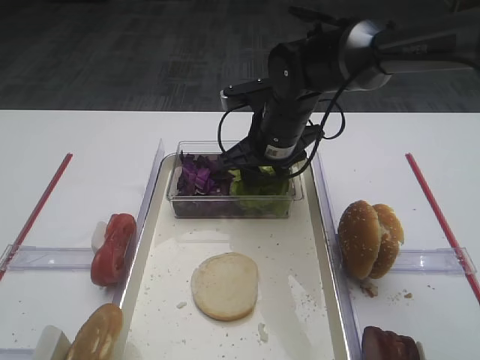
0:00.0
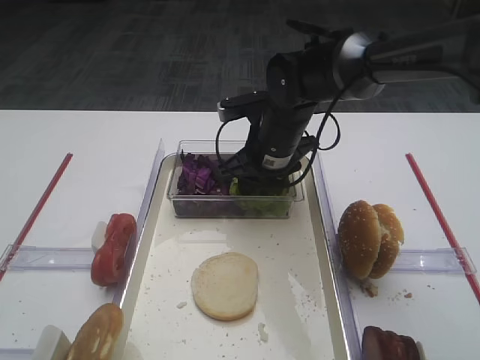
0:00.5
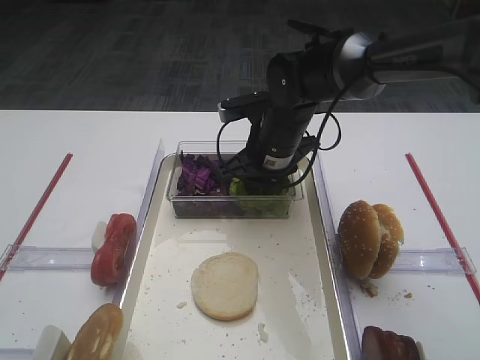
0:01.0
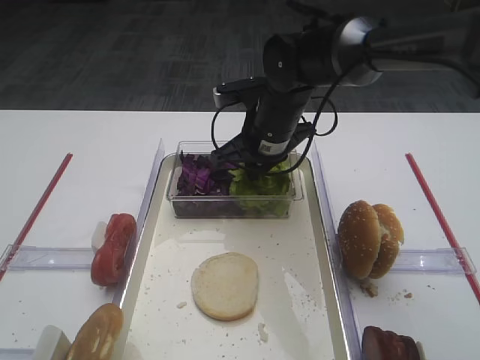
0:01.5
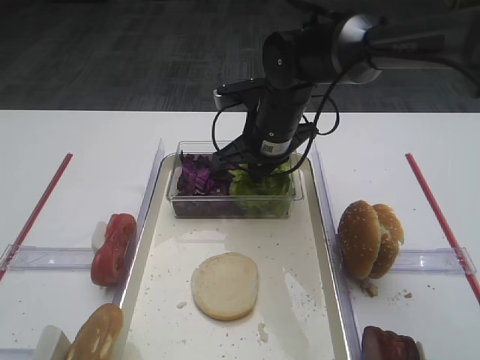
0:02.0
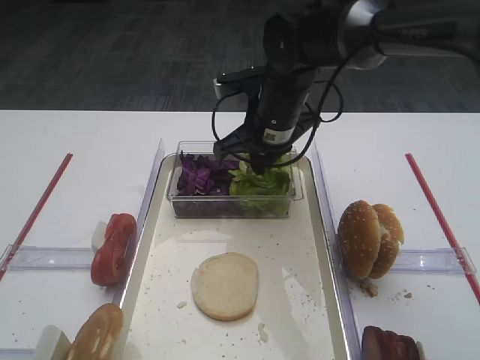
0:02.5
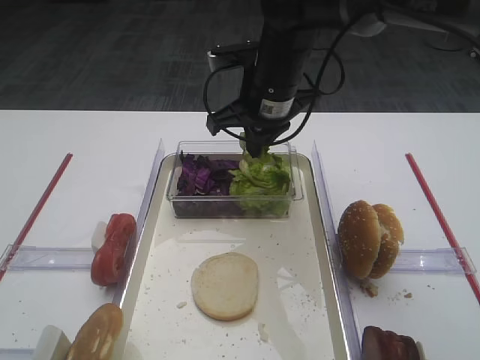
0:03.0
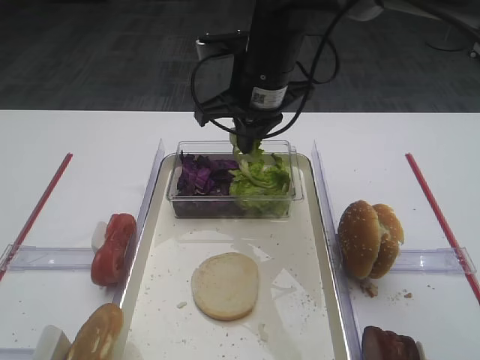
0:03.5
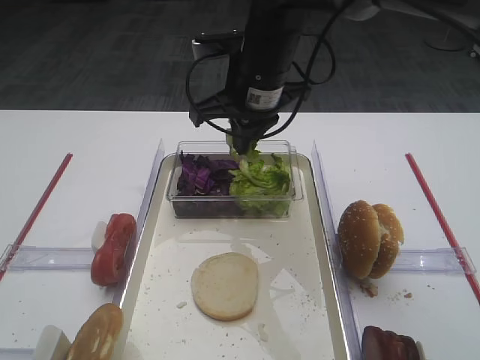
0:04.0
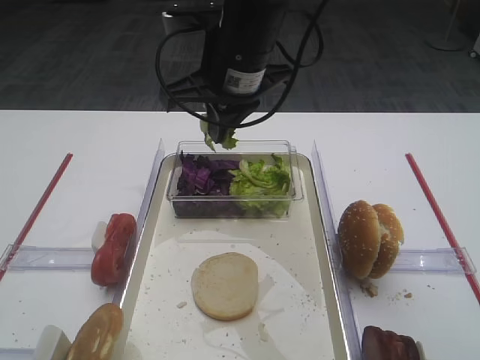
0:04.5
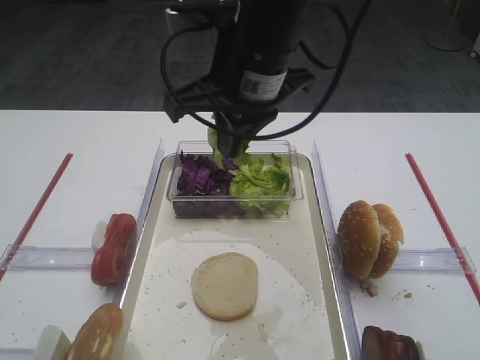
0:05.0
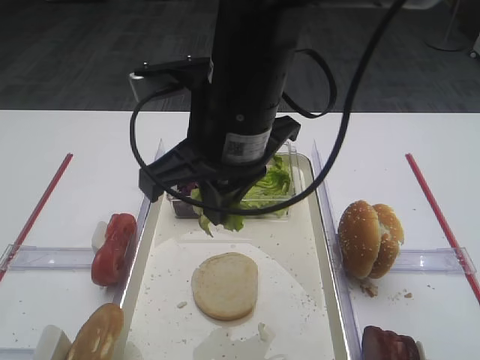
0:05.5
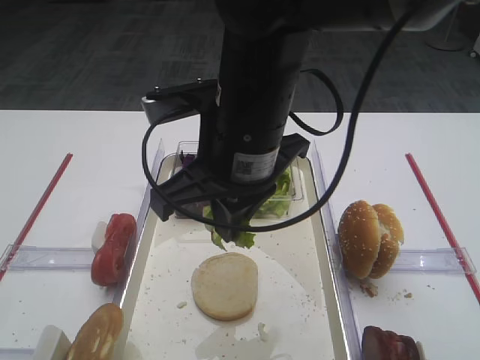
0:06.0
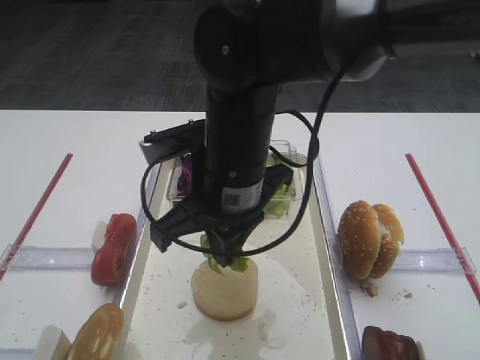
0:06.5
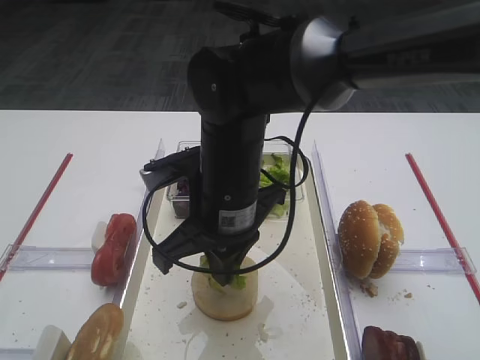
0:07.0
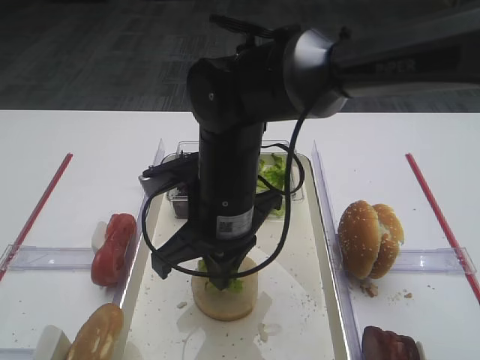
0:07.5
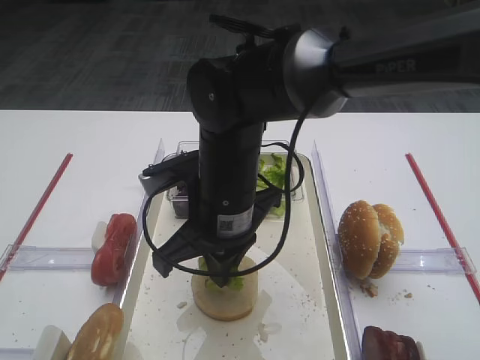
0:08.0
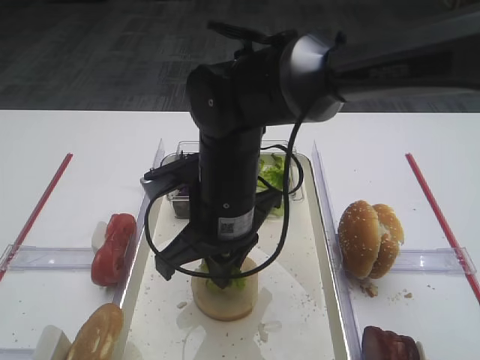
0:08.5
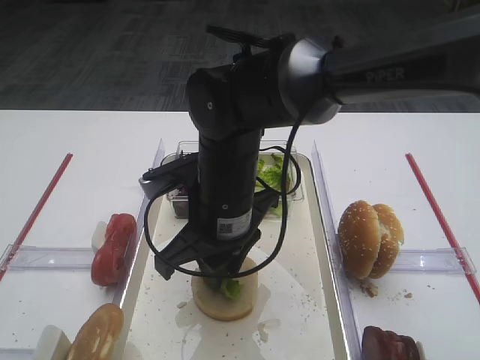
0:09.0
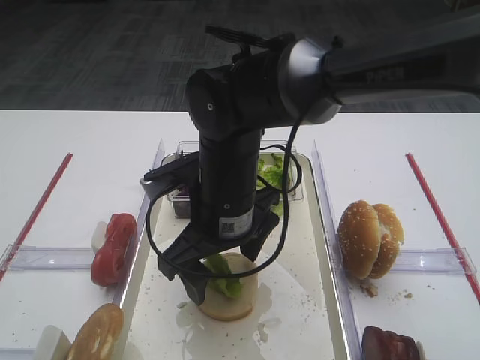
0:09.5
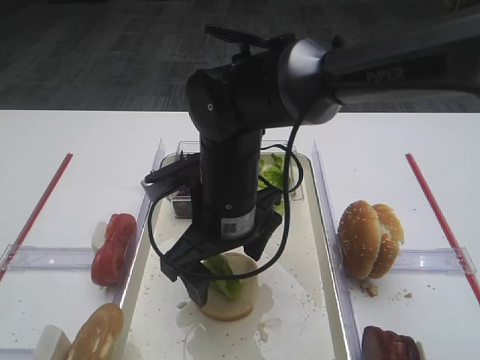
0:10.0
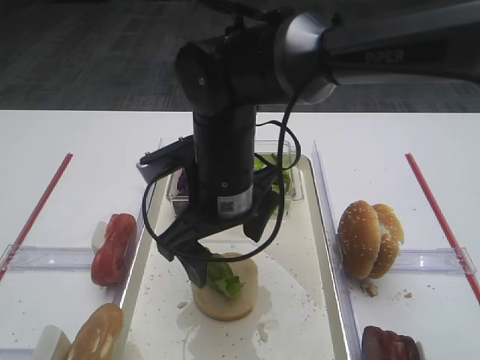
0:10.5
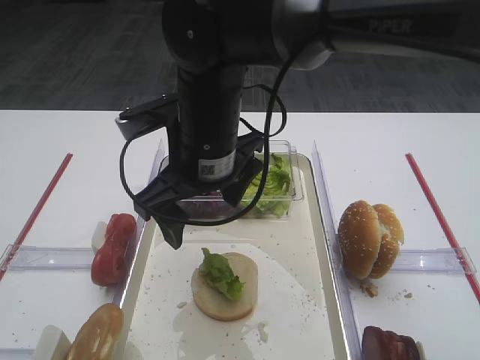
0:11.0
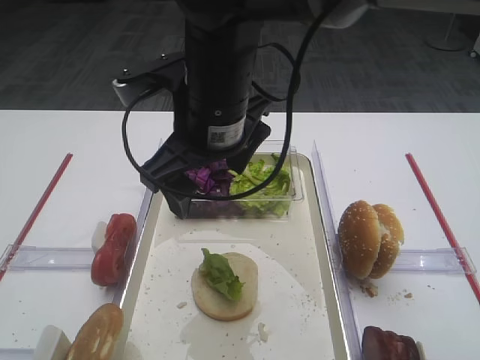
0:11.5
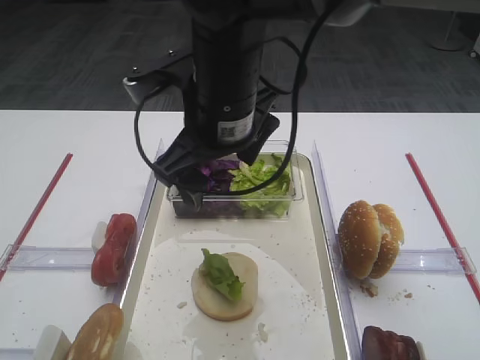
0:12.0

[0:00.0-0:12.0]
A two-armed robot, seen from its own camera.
Step, 0:00.0 to 0:03.0: Pick up the lettuce leaf with the right gripper.
Step, 0:03.5 to 0:10.5: Place the lettuce leaf on the bread slice with the right gripper.
0:00.0 to 0:02.0: The right gripper closes.
0:02.0 to 0:04.0: The right gripper goes about 10 cm upward.
0:04.0 to 0:06.0: The right gripper moves backward, approximately 15 cm.
0:06.0 to 0:08.0: The right gripper moves downward, some 10 cm.
0:08.0 to 0:10.0: The right gripper opens up.
0:10.0 to 0:12.0: The right gripper travels upward by some 10 cm.

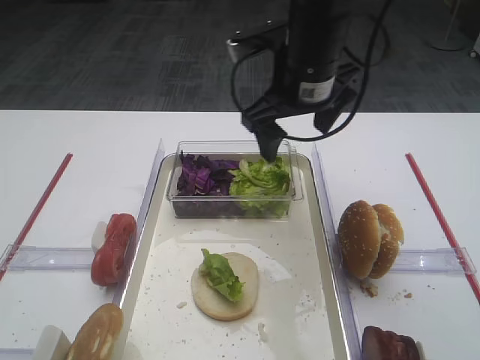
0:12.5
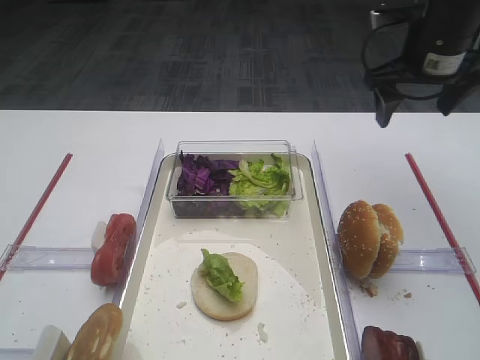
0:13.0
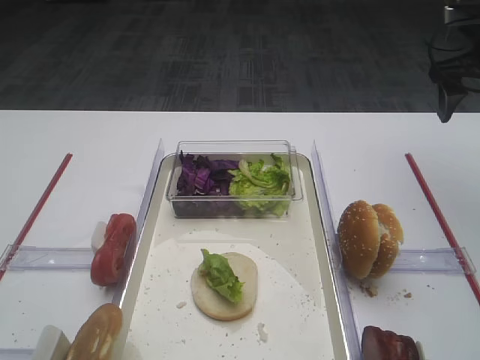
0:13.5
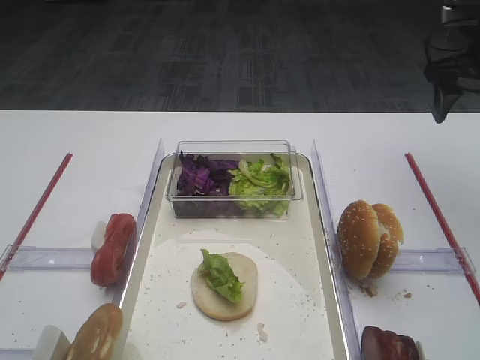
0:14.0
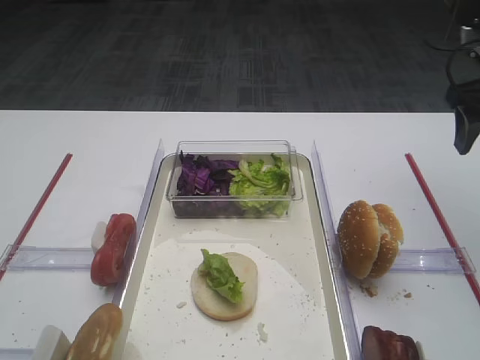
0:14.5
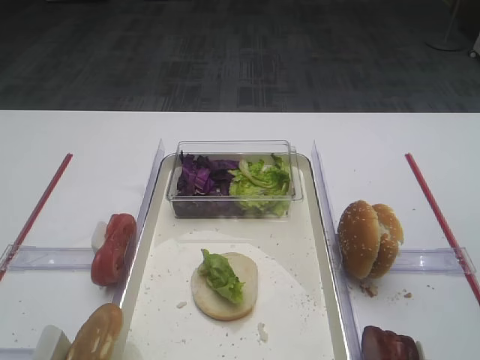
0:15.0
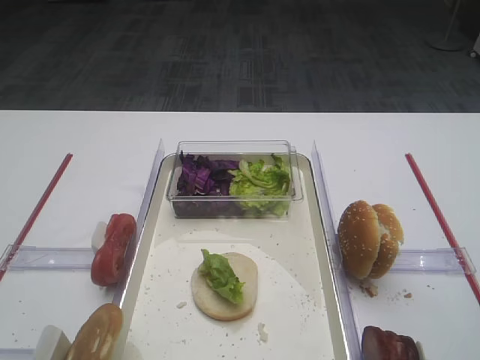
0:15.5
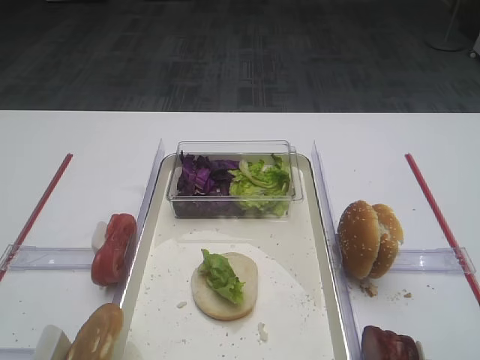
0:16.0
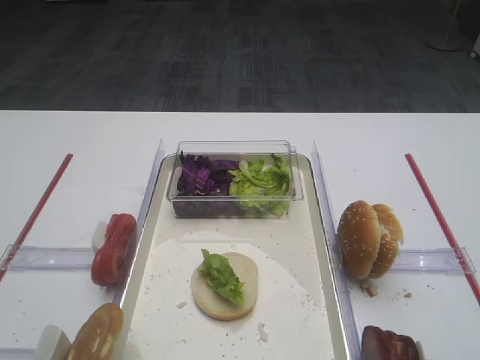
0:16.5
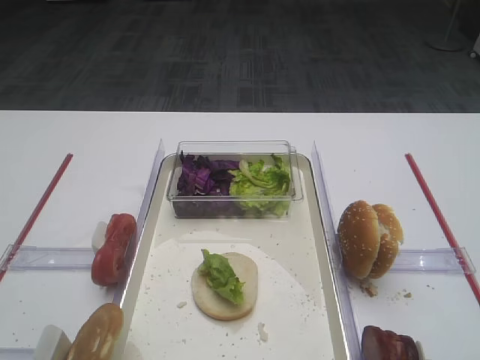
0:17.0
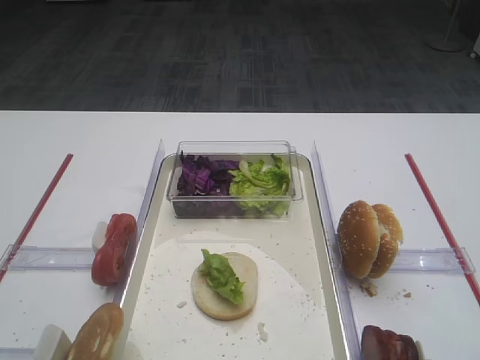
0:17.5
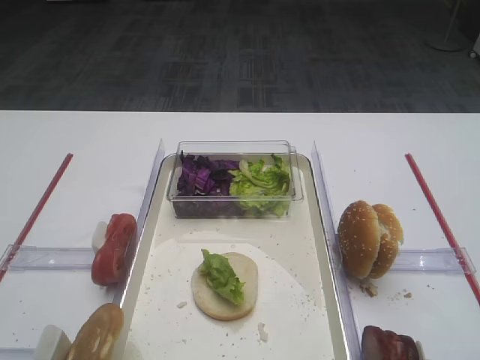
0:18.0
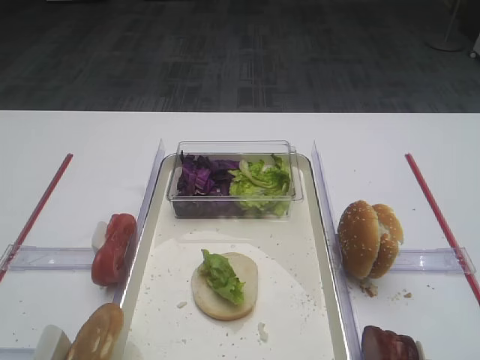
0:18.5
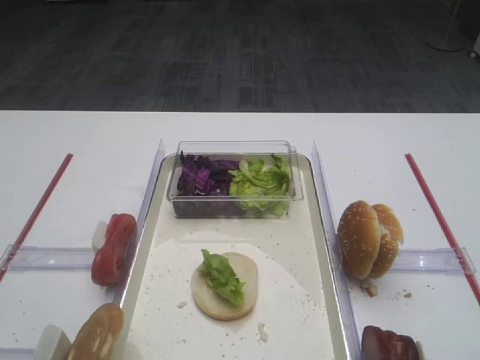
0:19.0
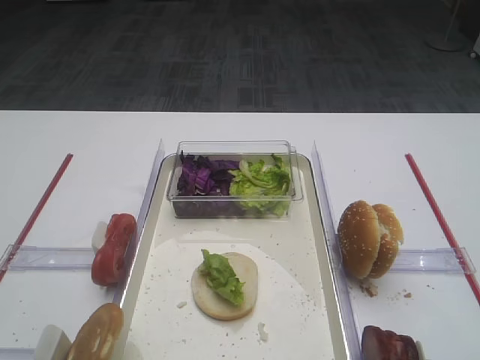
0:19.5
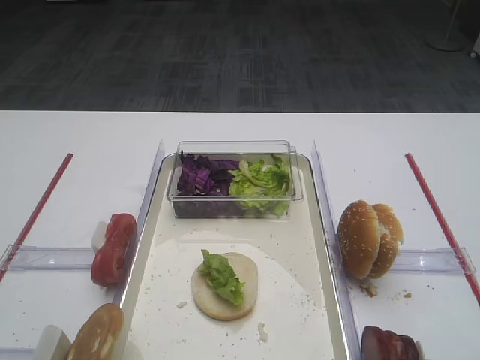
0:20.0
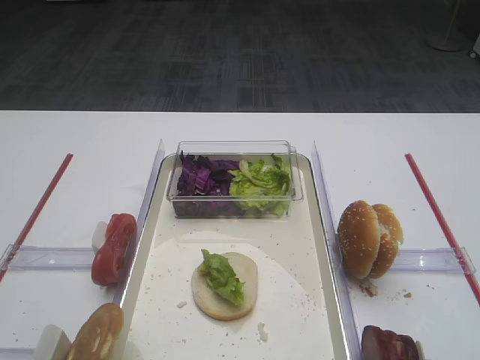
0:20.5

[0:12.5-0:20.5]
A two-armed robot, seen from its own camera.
0:12.5 to 0:14.5: The right gripper is displaced to the right by some 25 cm.
0:14.5 to 0:16.5: The right gripper heads backward, covering roughly 35 cm.
0:18.5 to 0:20.5: Both grippers stay put.

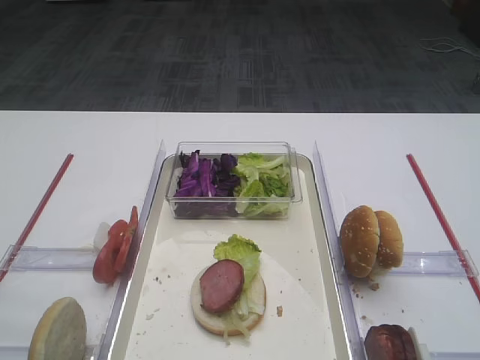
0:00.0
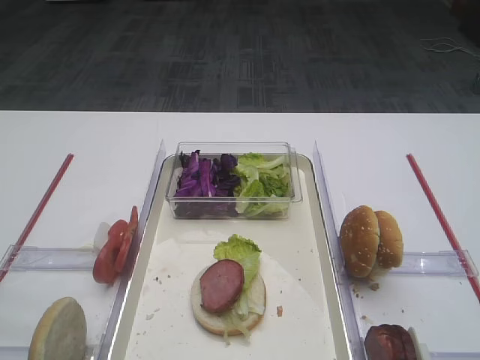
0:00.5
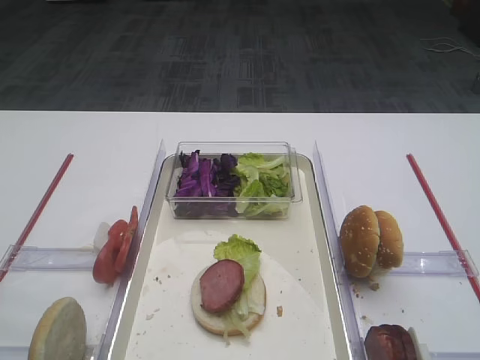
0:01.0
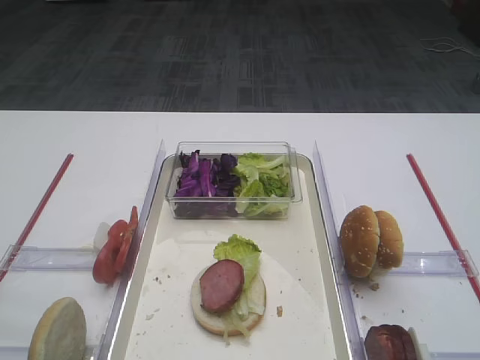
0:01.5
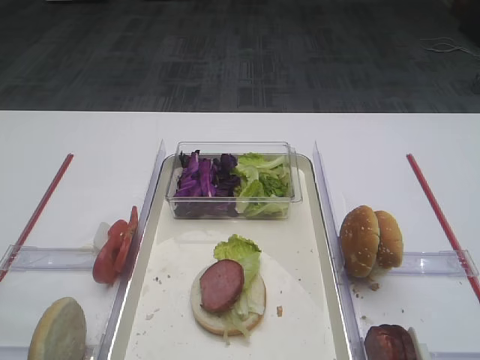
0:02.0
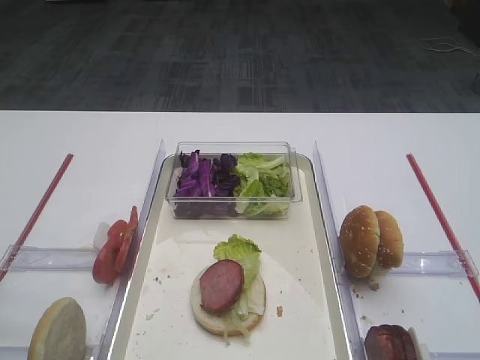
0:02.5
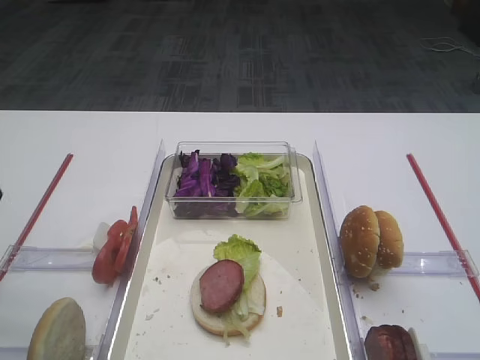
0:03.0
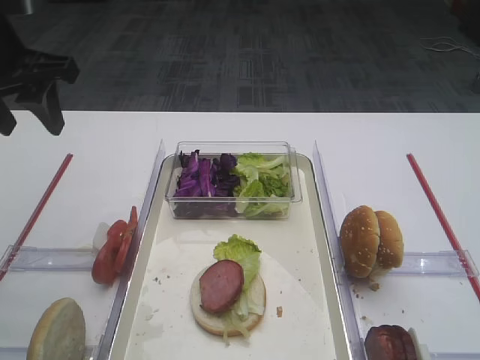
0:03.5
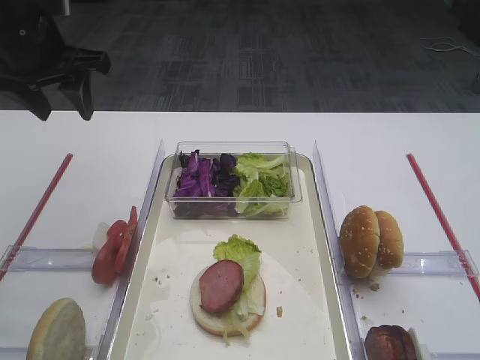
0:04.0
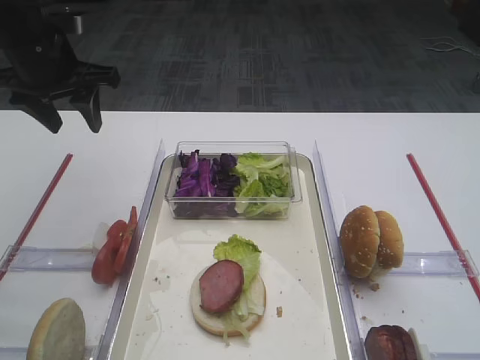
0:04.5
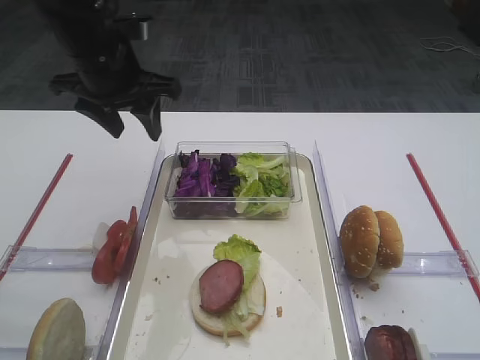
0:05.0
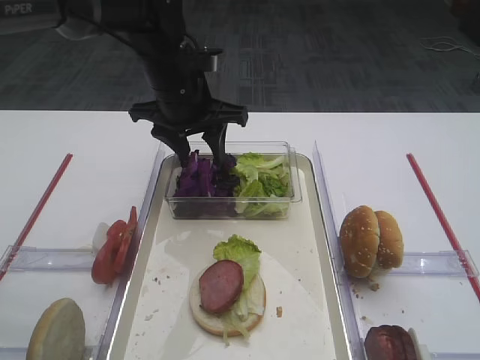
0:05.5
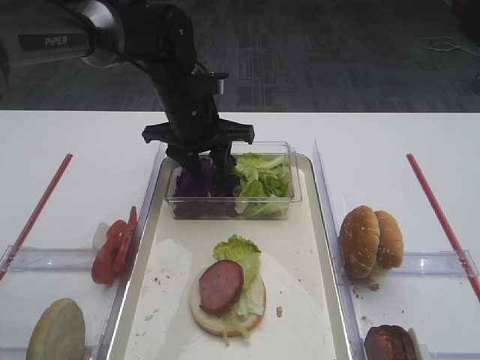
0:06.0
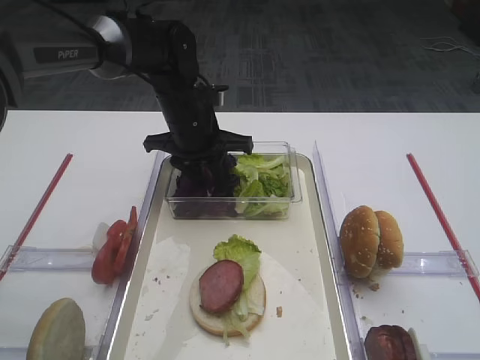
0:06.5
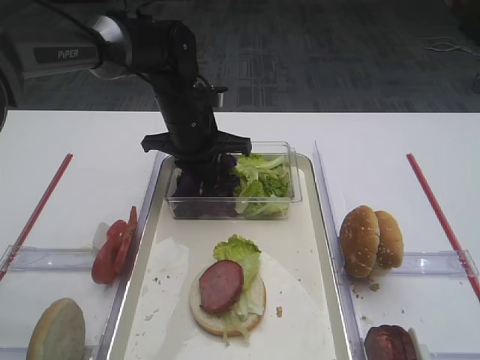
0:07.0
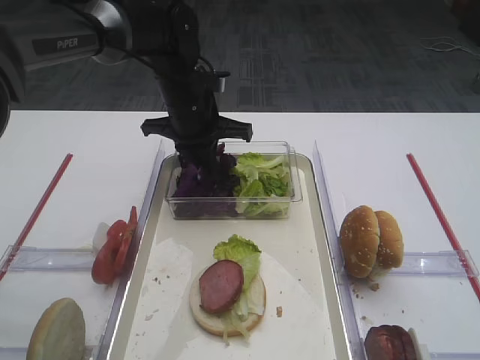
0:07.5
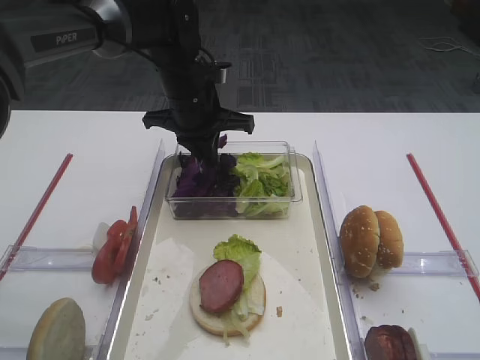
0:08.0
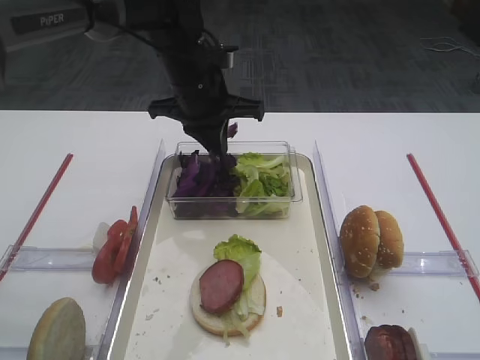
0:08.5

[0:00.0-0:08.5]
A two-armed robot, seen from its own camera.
0:02.0 to 0:04.0: The left gripper is displaced forward by approximately 40 cm.
0:04.0 to 0:06.5: The left gripper is displaced to the right and downward by approximately 20 cm.
0:06.5 to 0:08.5: The left gripper moves upward, approximately 5 cm, and closes.
